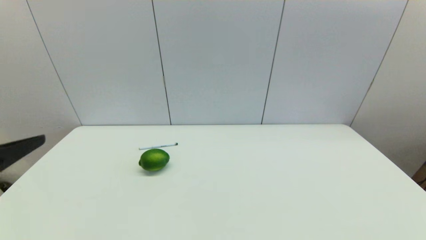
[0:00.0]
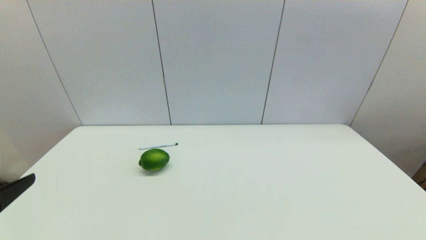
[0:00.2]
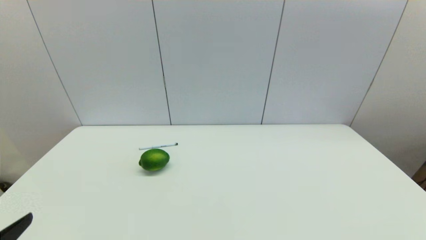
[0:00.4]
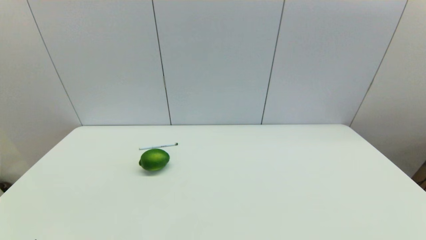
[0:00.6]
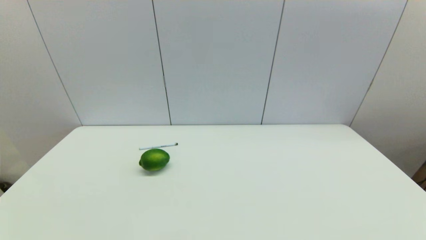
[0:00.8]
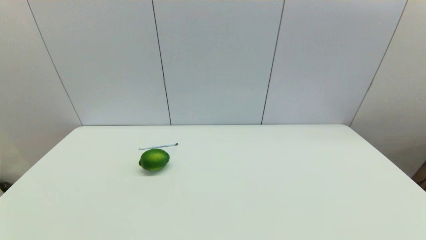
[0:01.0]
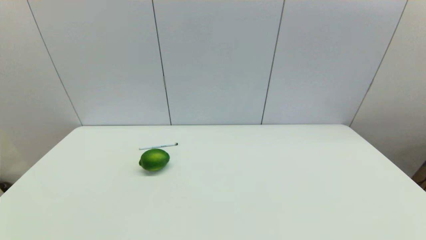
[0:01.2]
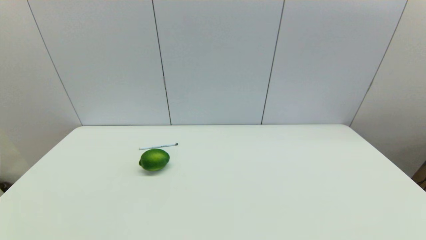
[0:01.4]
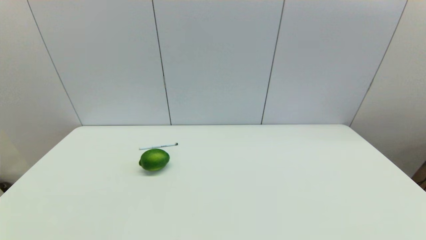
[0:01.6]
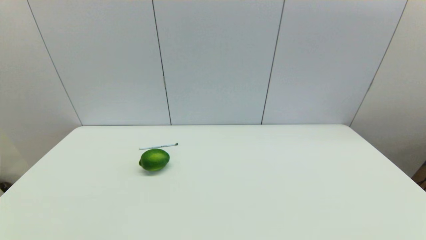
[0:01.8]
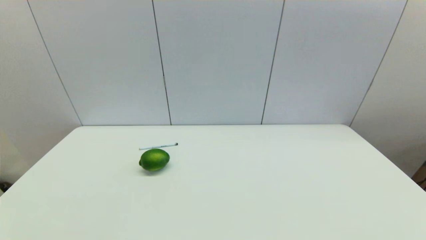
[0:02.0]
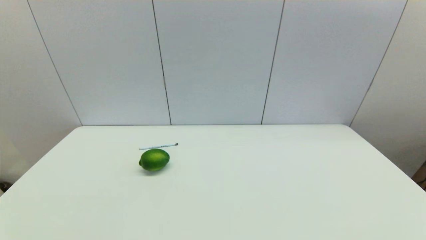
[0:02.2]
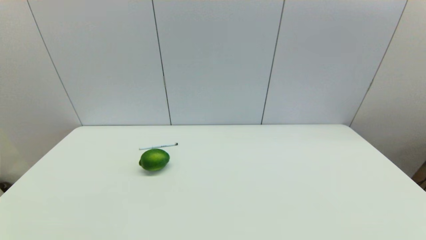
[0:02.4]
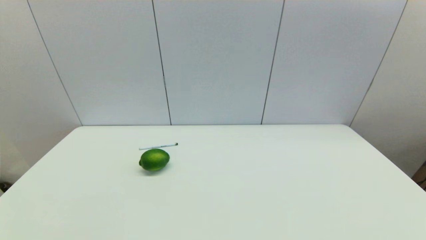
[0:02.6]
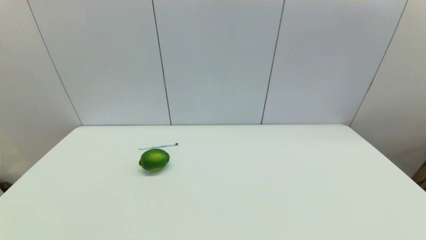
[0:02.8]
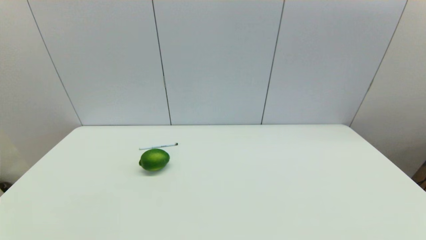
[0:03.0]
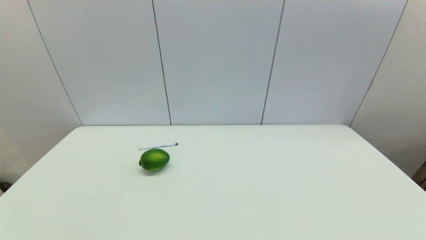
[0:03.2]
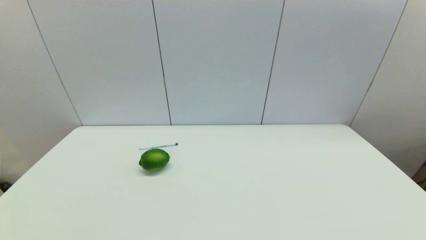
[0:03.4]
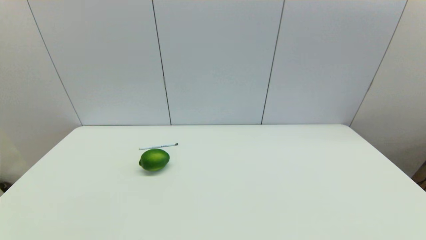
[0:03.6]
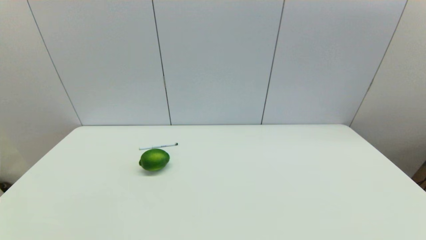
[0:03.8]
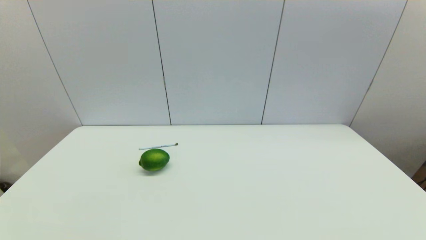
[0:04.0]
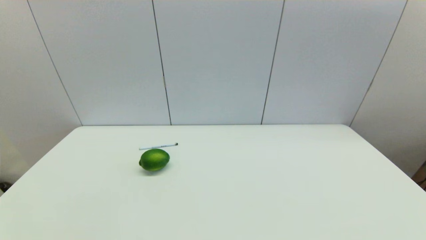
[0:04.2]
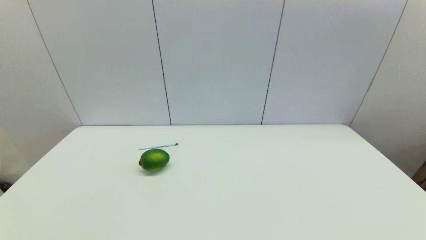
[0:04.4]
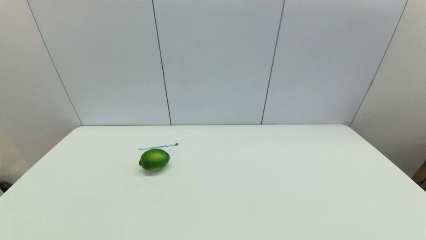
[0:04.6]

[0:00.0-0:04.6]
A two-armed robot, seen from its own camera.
Task of the whole recording: put the pen in the designated position.
0:00.0 to 0:01.6: The left gripper moves downward and backward, about 20 cm.
0:03.0 to 0:04.6: Both grippers stay about where they are.
